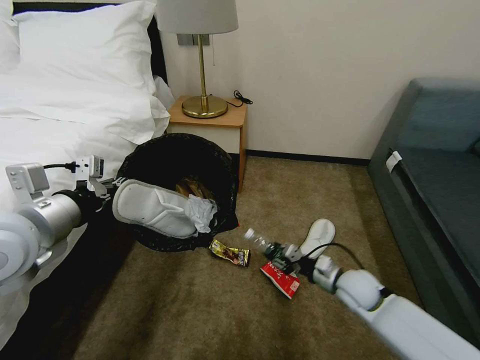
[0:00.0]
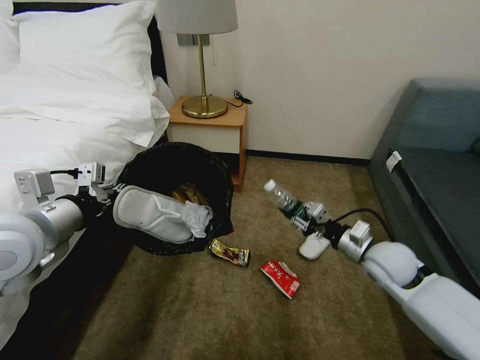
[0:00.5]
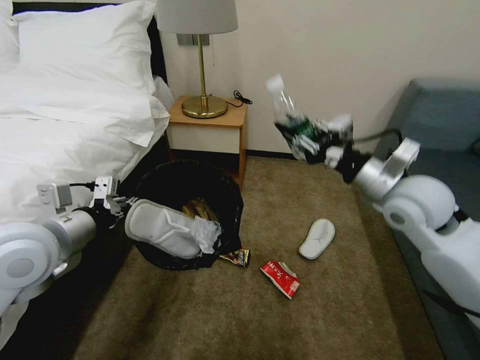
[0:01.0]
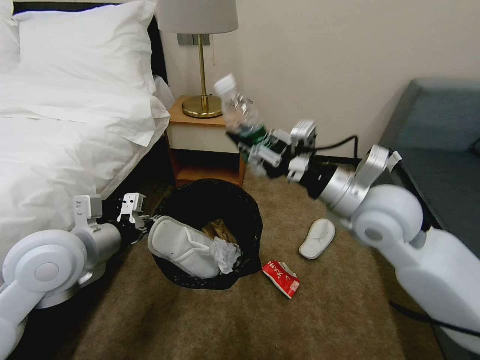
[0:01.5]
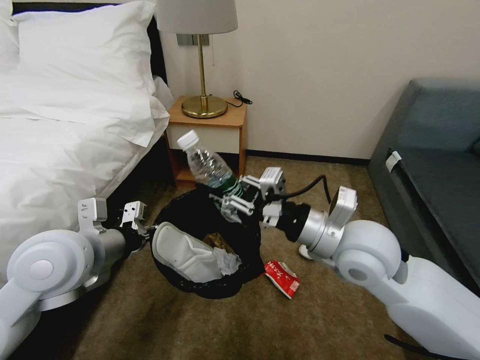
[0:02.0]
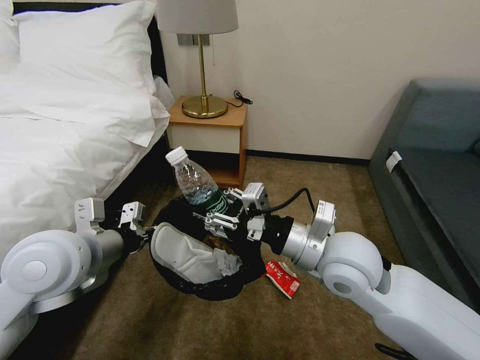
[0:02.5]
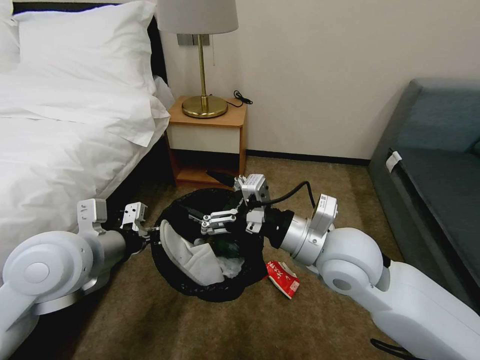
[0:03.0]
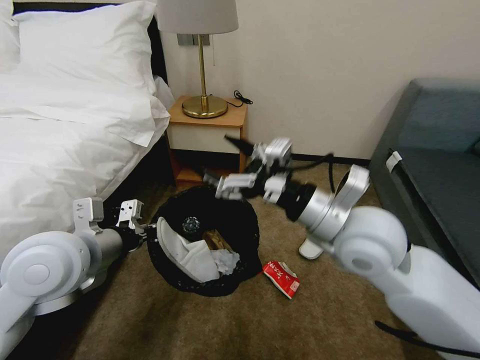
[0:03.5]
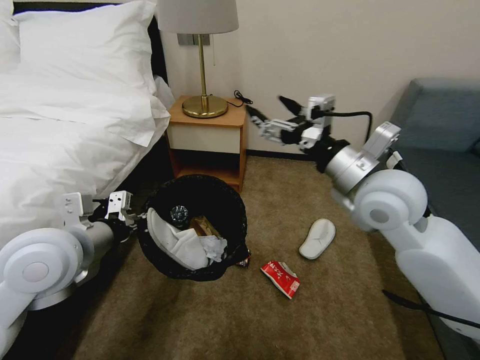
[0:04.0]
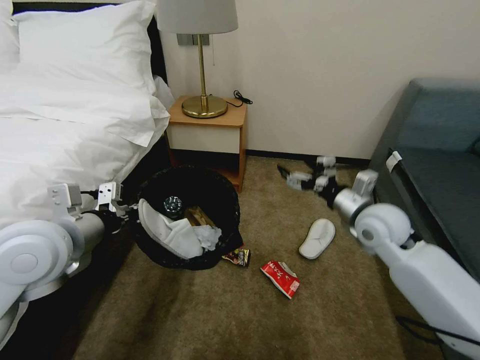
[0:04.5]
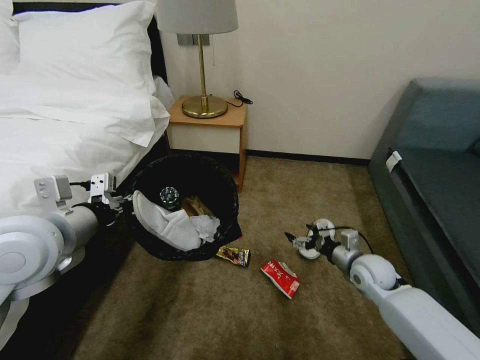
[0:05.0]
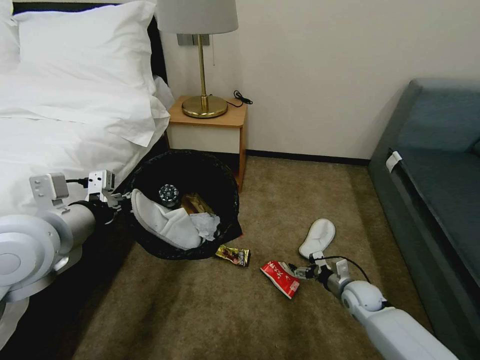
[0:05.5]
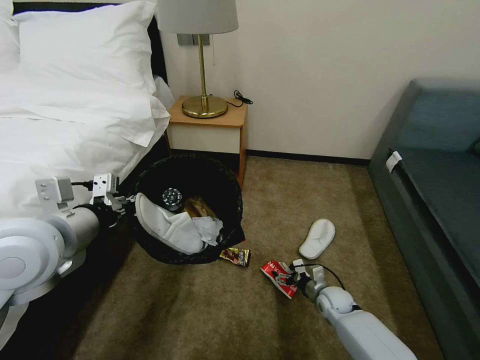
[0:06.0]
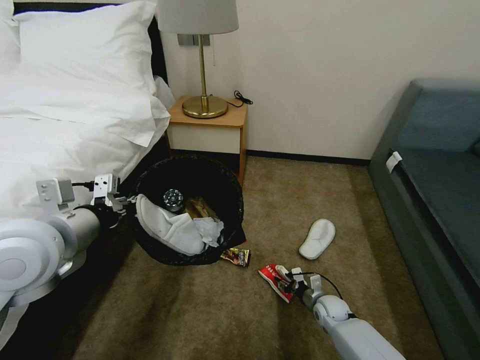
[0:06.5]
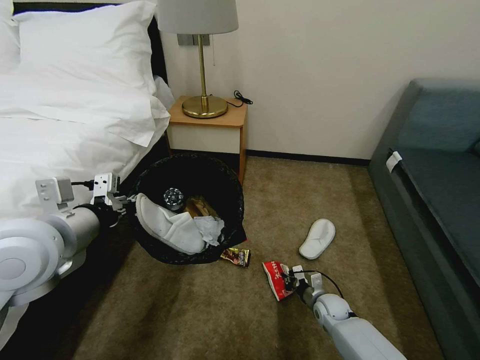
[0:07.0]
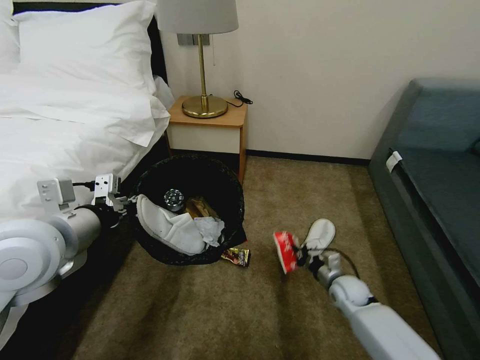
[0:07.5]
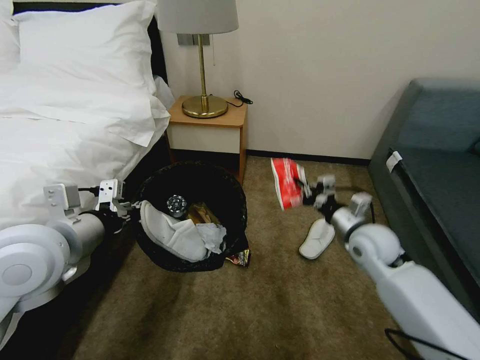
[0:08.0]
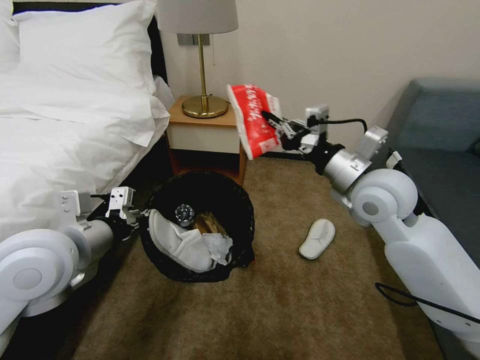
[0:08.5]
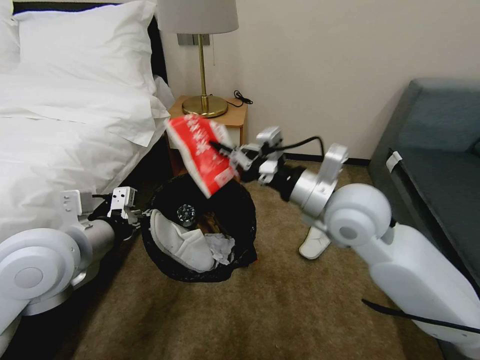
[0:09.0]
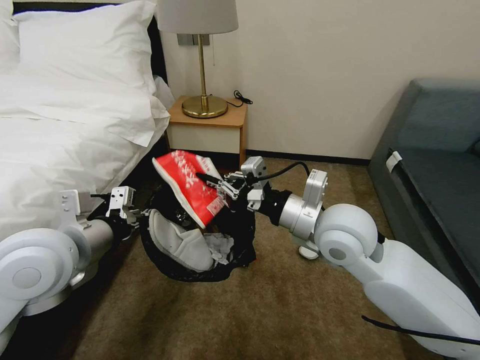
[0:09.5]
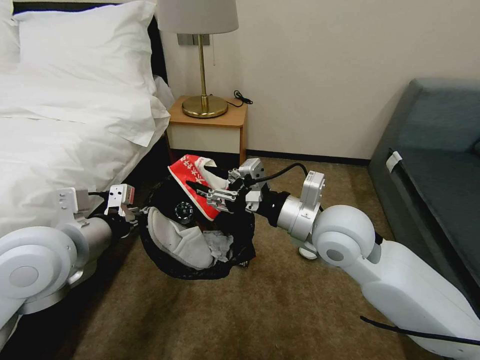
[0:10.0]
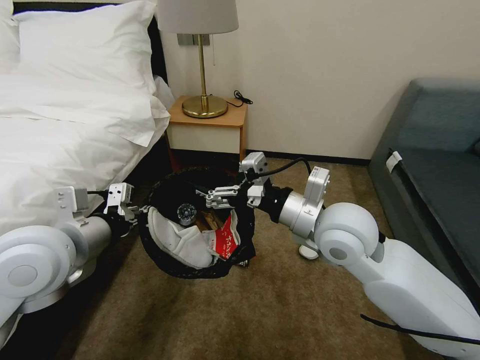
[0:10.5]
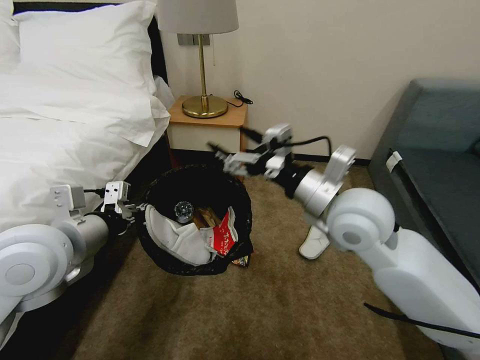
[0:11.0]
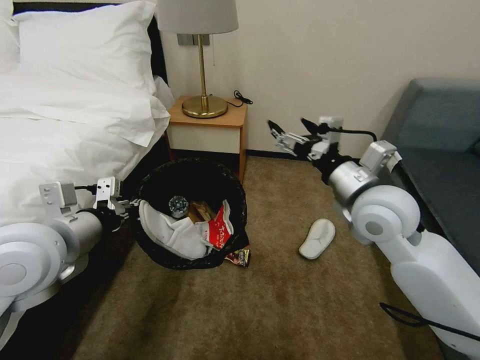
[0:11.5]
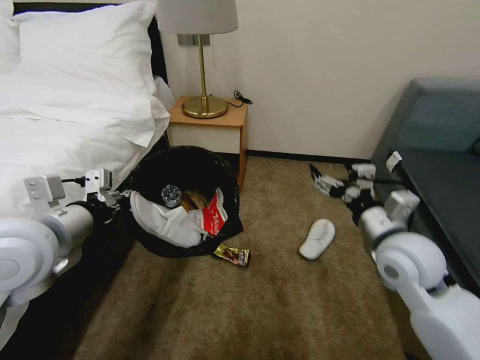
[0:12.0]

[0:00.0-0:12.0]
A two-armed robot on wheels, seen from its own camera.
Task of the whole recording: Pick up the trash bin, then pick up the garbage on the floor and place it into the trash bin.
0:00.0 to 0:02.0: The left gripper moves approximately 5 cm. Meanwhile the right gripper moves upward and to the left, about 25 cm.
0:02.0 to 0:04.0: The right gripper goes roughly 10 cm forward and upward, and opens.
0:04.0 to 0:06.0: The right gripper moves downward, approximately 40 cm.
0:06.0 to 0:08.0: The right gripper moves upward, roughly 25 cm, and closes its fingers.
0:08.0 to 0:10.0: The right gripper shifts about 20 cm to the left, upward and backward, and opens.
0:10.0 to 0:12.0: The right gripper goes about 10 cm to the right.

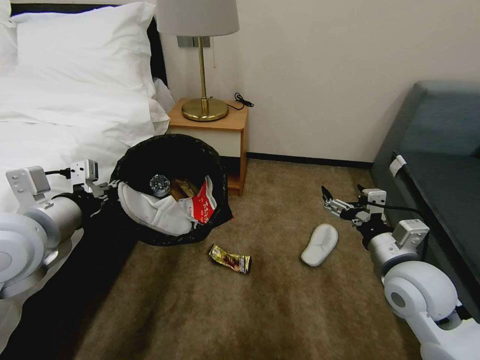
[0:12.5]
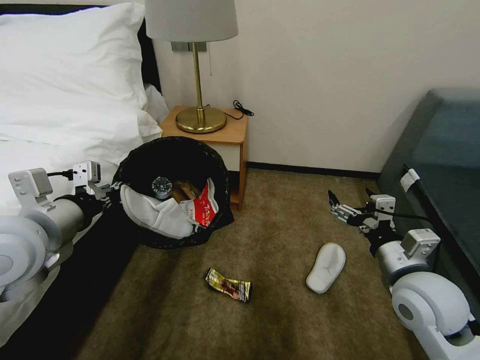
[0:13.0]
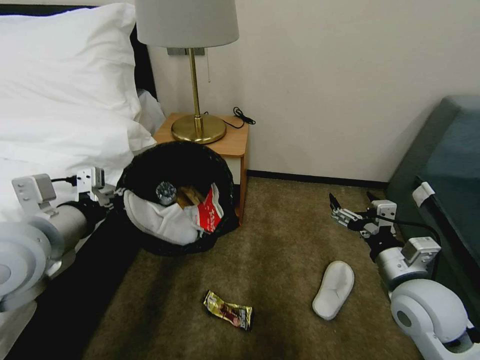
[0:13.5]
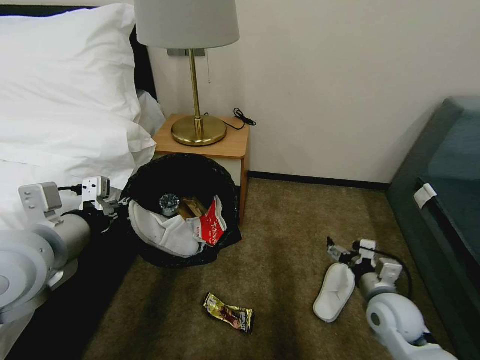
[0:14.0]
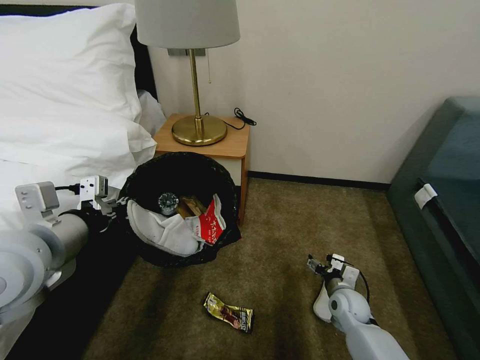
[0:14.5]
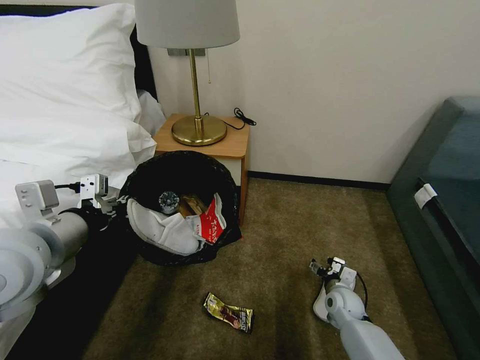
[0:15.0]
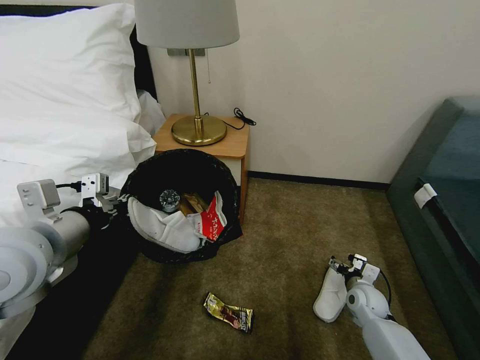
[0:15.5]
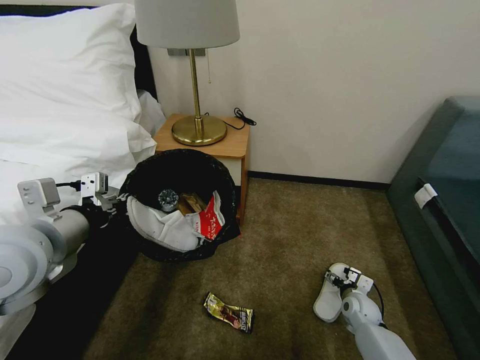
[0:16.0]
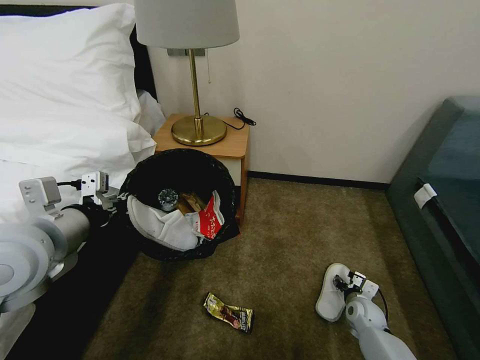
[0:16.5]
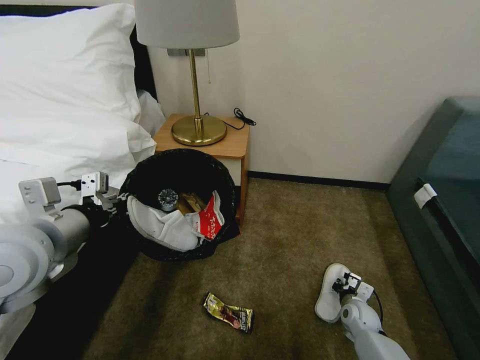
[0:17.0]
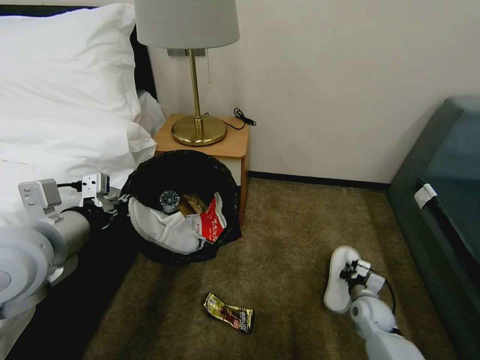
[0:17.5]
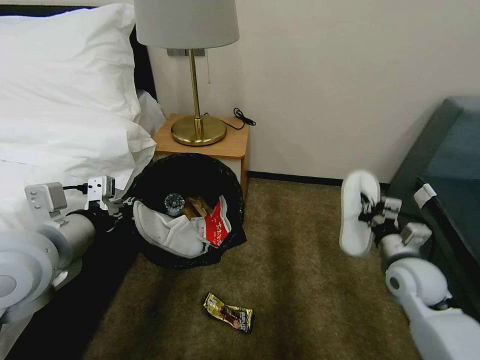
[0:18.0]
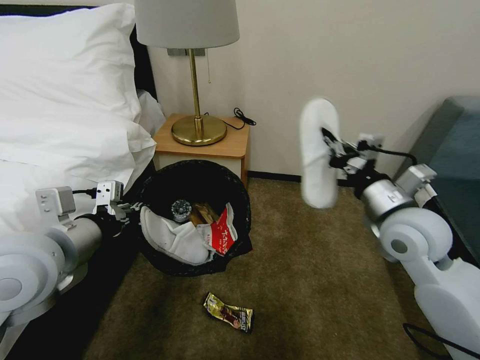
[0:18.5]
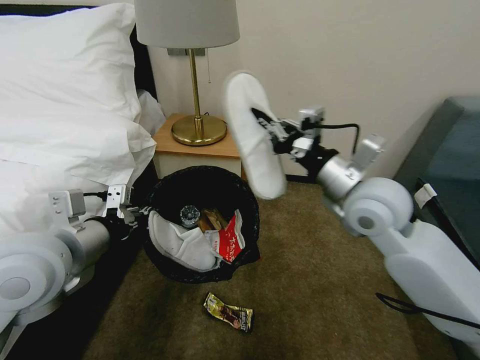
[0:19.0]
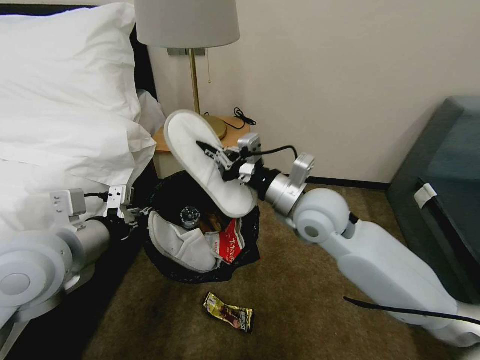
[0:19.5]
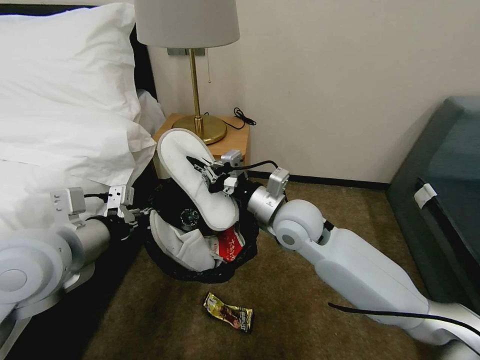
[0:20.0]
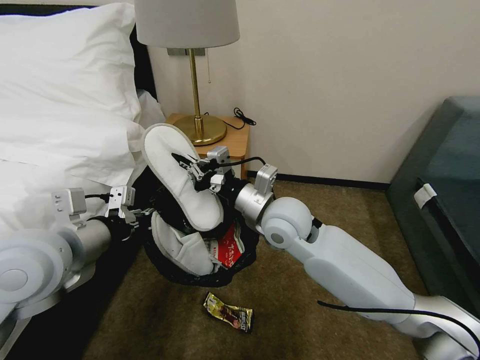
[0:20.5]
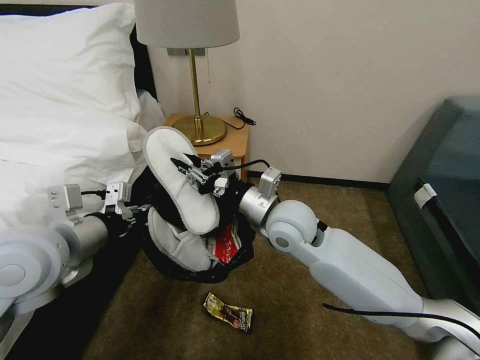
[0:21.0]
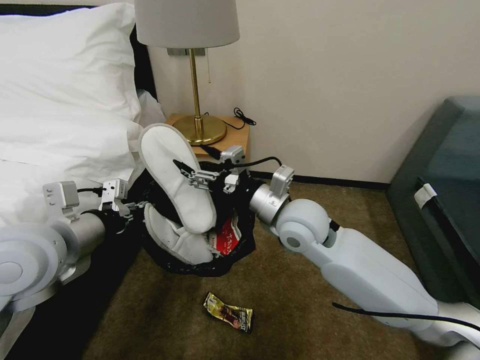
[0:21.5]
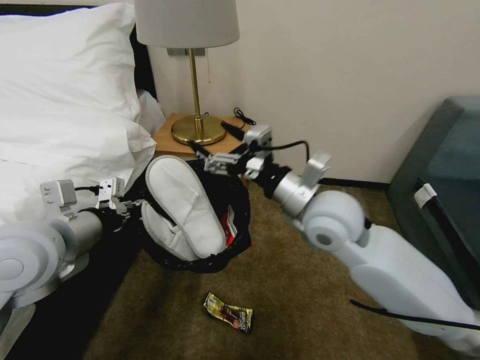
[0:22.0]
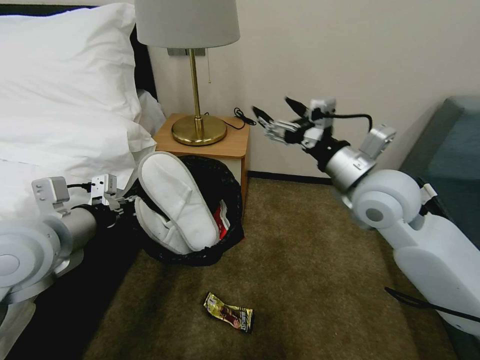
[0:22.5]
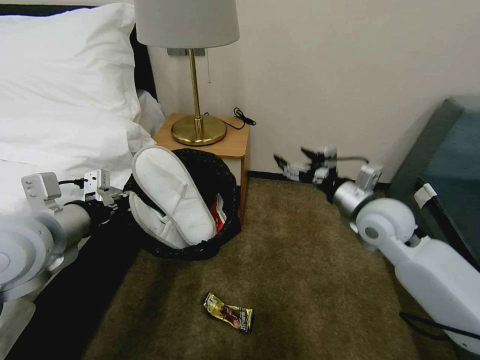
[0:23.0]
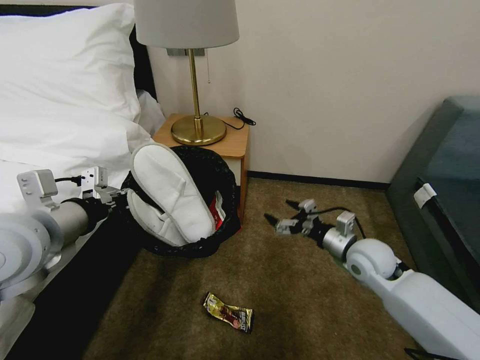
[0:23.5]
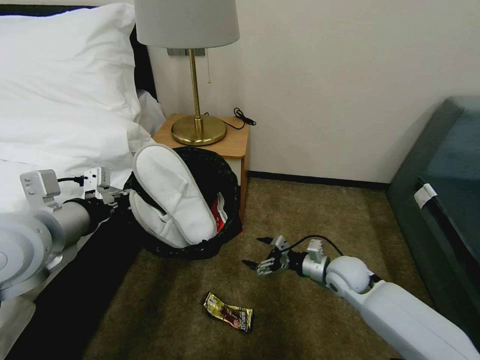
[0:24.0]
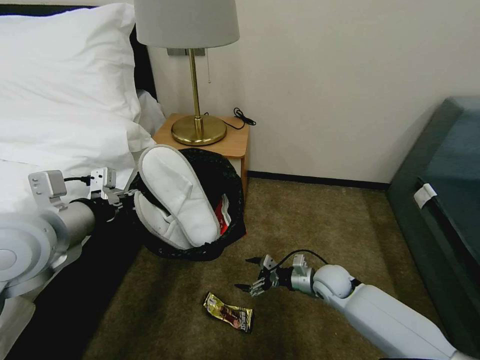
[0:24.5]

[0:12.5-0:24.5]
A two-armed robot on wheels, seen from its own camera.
Task of the whole recording: Pick up the trash bin, then pick up the garbage on the floor and place it into the trash bin.
0:12.5 to 0:14.5: The right gripper goes about 25 cm downward.
0:14.5 to 0:16.5: The right gripper travels downward and to the right by approximately 10 cm.
0:16.5 to 0:18.5: The right gripper moves upward, approximately 40 cm, and closes up.
0:18.5 to 0:20.5: The right gripper is displaced to the left by some 20 cm.
0:20.5 to 0:22.5: The right gripper moves to the right and upward, about 15 cm, and opens.
0:22.5 to 0:24.5: The right gripper travels downward by approximately 35 cm.

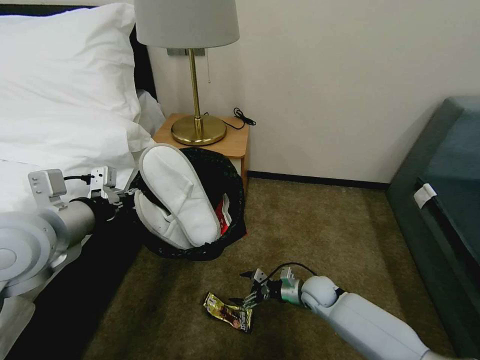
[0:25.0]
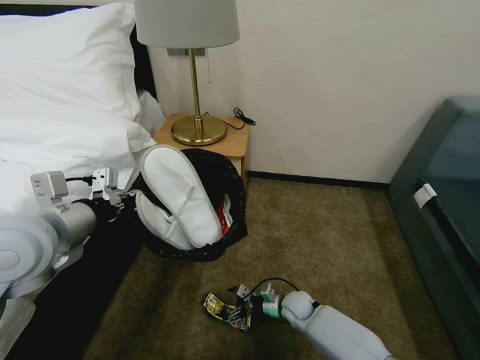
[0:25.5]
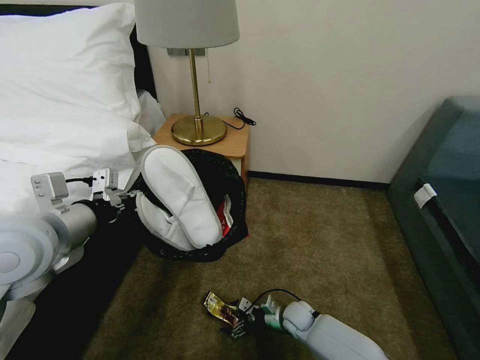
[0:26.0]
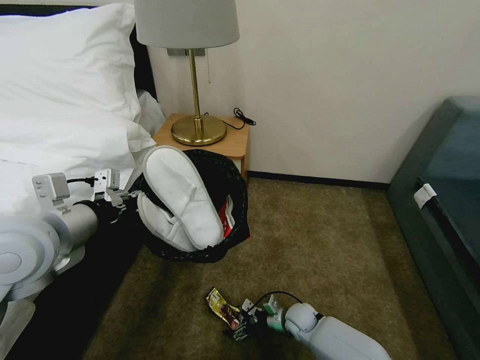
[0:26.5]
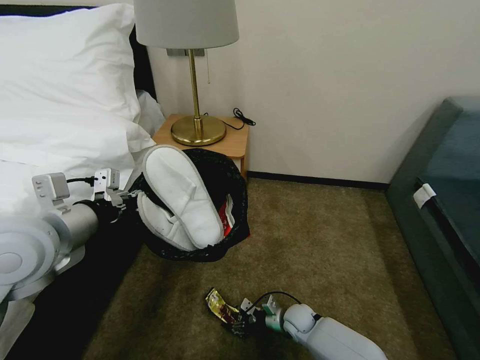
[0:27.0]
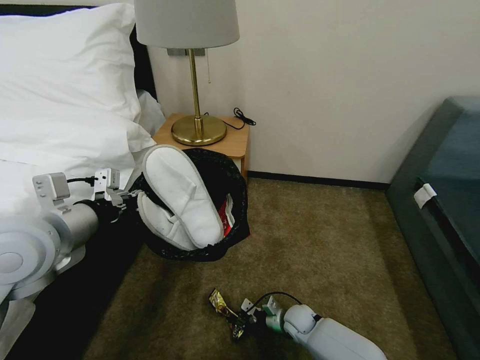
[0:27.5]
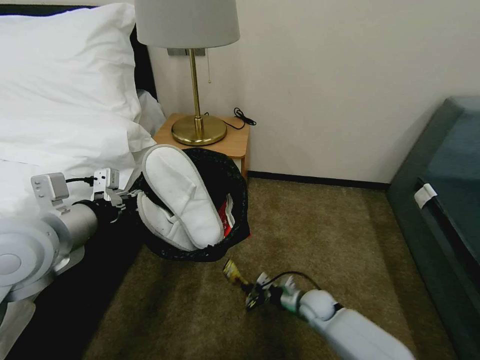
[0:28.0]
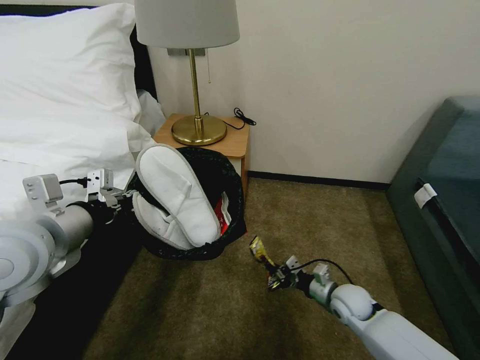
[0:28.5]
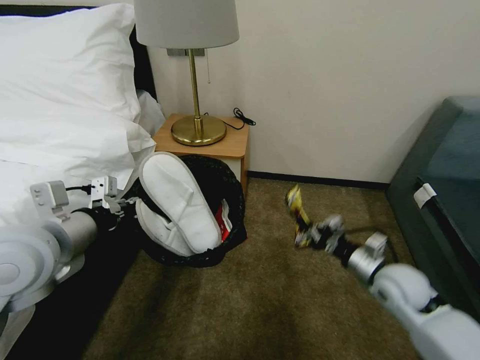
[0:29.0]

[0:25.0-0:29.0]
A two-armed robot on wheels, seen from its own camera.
Task of the whole recording: Pick up the trash bin, then pick up the garbage on the floor and place it into the trash bin.
0:25.0 to 0:27.0: The right gripper moves downward, roughly 10 cm, and closes.
0:27.0 to 0:29.0: The right gripper travels upward and to the right by approximately 30 cm, and closes.
